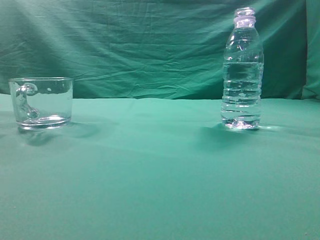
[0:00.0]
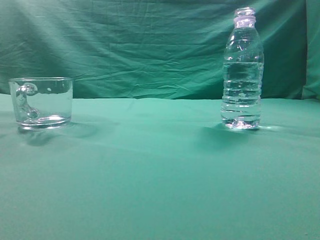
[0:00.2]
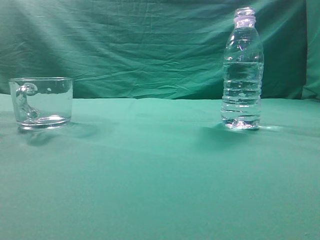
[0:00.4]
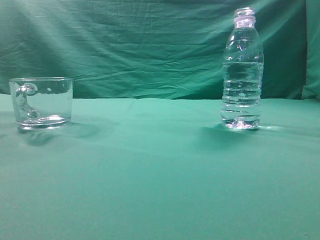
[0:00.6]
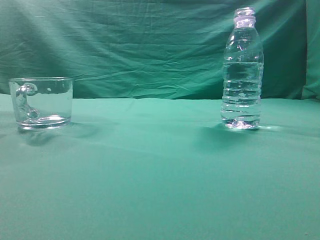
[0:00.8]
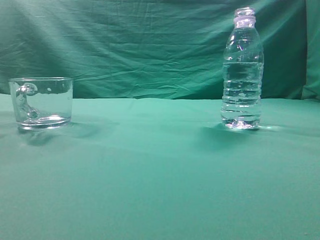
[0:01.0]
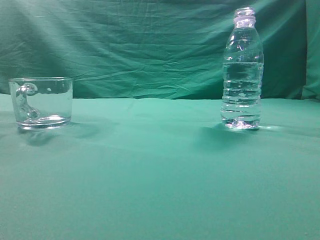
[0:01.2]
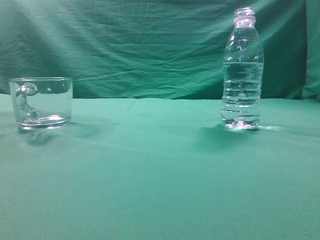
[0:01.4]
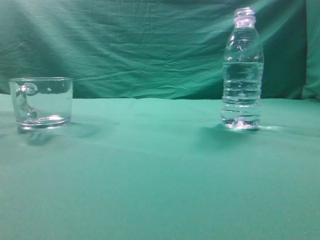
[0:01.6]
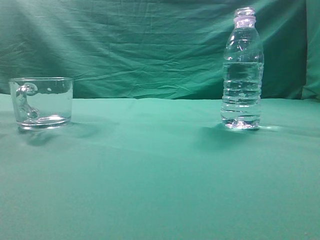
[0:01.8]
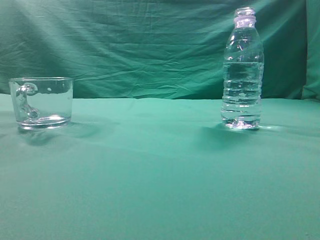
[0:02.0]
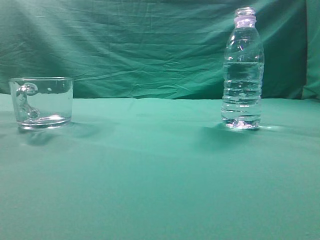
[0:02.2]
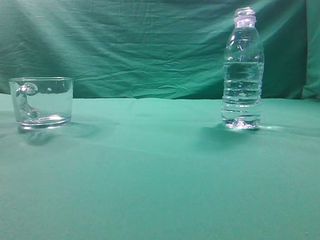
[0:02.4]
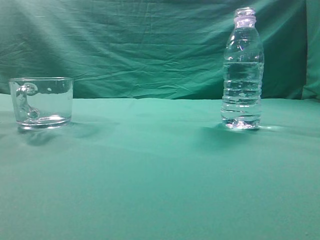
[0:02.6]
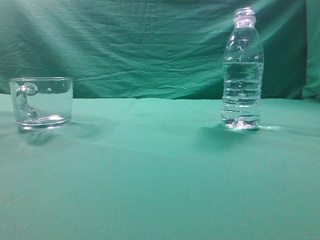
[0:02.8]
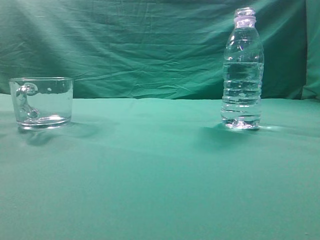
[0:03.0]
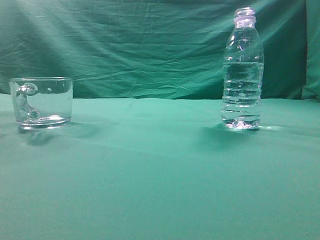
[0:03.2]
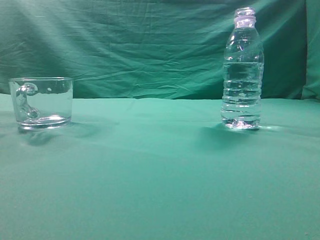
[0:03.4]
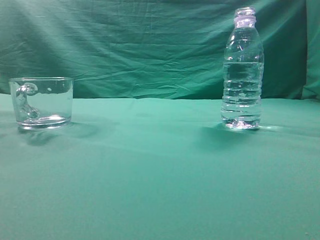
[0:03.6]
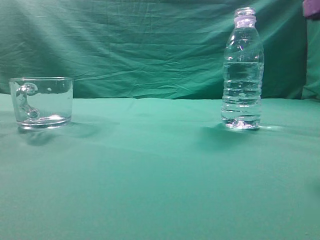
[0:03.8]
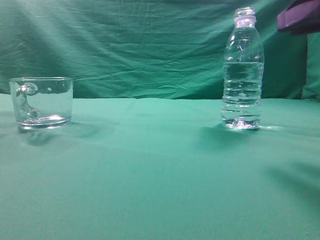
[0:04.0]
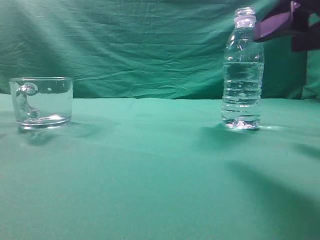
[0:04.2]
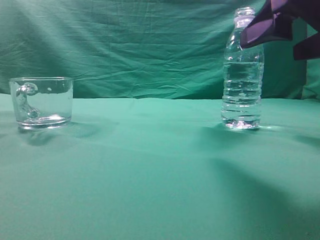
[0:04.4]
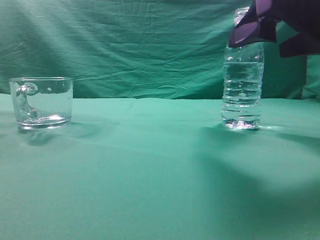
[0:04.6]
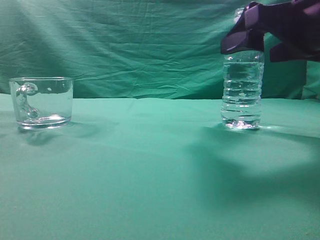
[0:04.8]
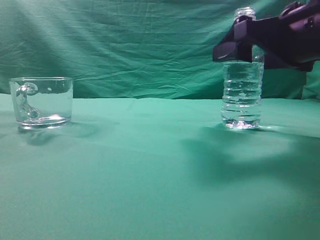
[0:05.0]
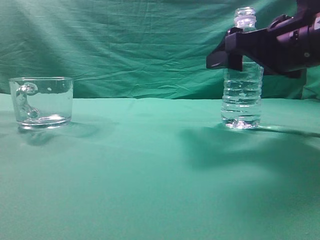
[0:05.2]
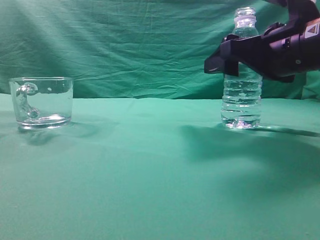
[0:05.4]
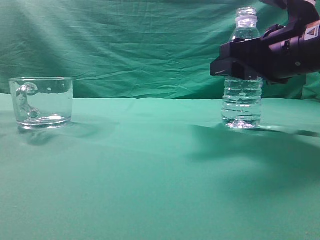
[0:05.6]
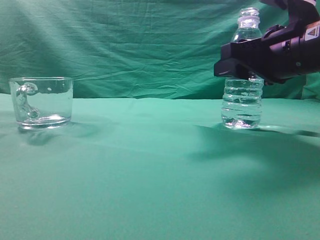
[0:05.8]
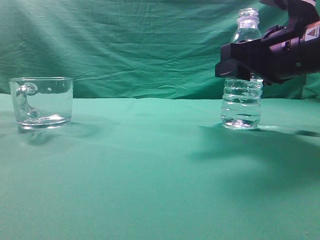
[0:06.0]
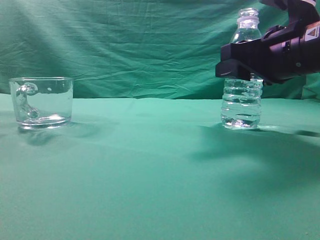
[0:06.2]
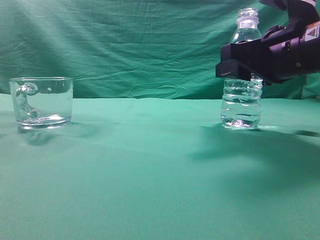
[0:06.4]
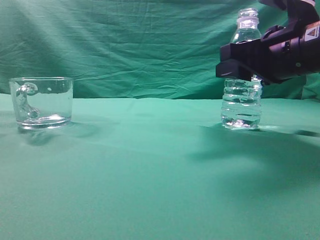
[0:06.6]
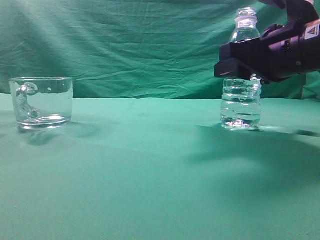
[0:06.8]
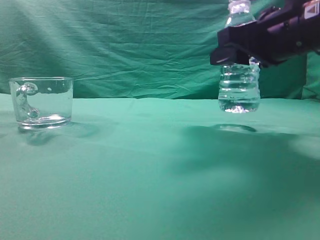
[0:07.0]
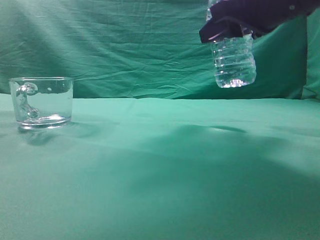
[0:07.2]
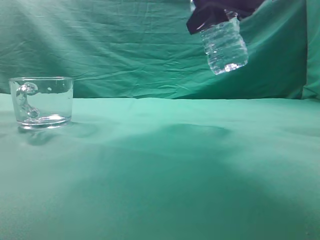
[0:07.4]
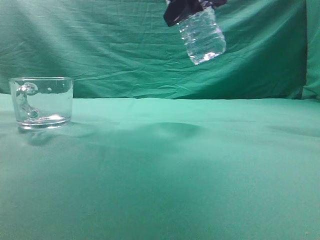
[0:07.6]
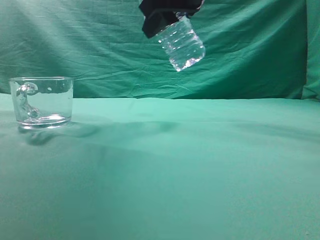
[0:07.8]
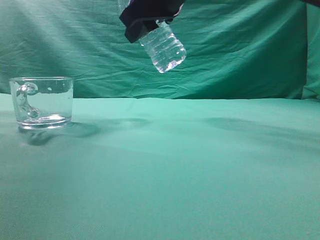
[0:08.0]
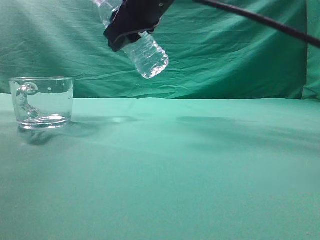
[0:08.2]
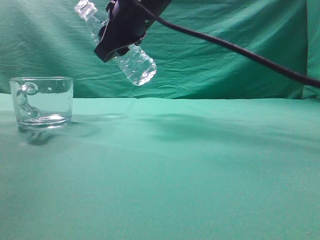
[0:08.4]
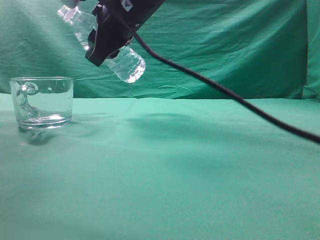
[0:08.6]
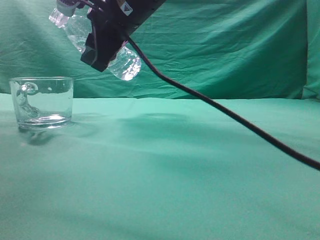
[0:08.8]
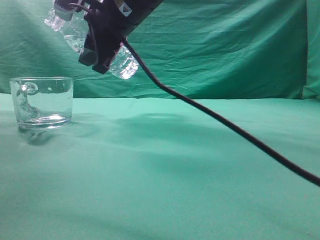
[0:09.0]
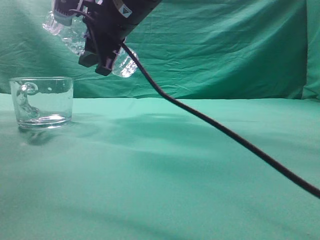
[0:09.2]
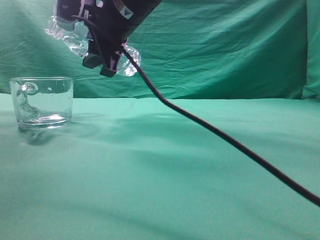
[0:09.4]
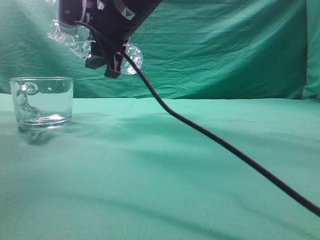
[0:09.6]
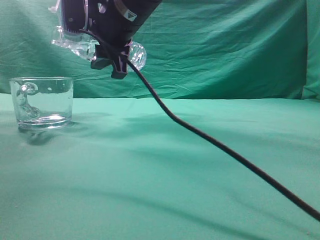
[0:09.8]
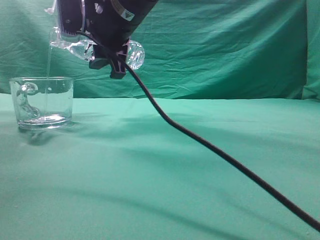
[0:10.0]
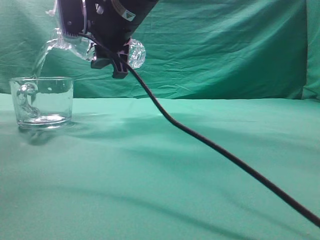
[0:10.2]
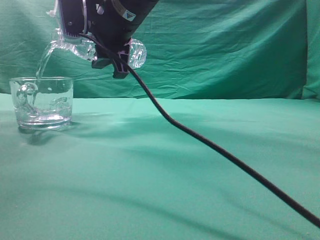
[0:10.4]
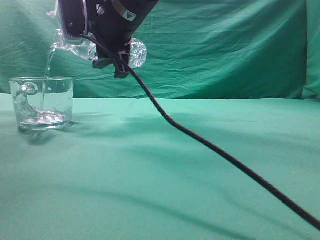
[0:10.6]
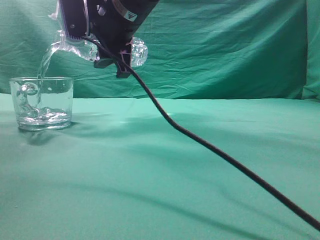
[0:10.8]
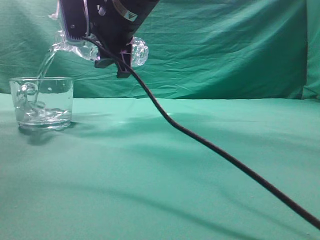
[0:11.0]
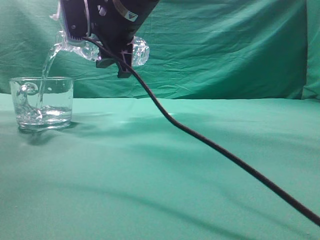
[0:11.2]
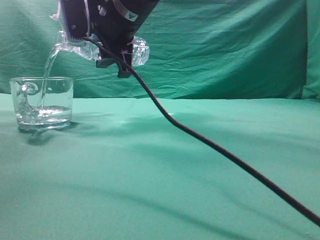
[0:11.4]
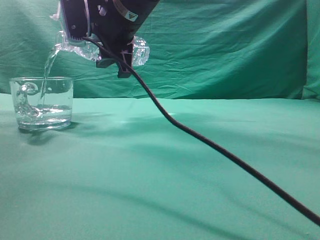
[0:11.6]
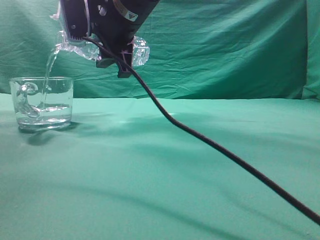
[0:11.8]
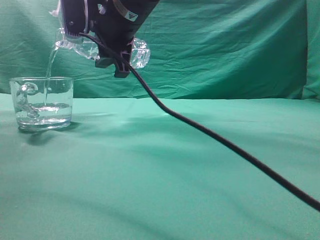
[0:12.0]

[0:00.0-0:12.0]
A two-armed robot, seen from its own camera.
Task of the whole recording: pick up the water bottle and pour the water in it into the glass.
Step, 0:00.0 to 0:07.0: Grasp the mineral water bottle.
0:03.0 to 0:04.4: The right gripper is displaced forward, to the left and downward by approximately 20 cm, and opens.
0:04.4 to 0:06.0: The right gripper heads forward, covering roughly 5 cm, and closes up.
0:06.0 to 0:07.6: The right gripper shifts about 15 cm upward and to the left.
0:07.6 to 0:09.0: The right gripper is displaced to the left and forward by approximately 15 cm.
0:09.0 to 0:10.4: There are only small adjustments of the grippers.
0:10.4 to 0:12.0: The grippers move only a little.

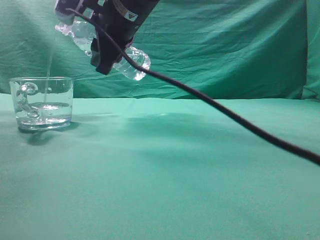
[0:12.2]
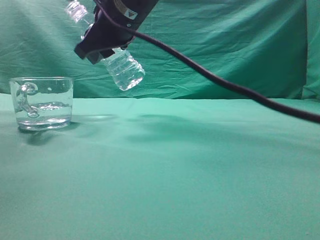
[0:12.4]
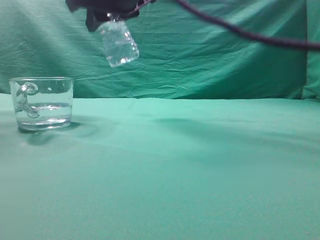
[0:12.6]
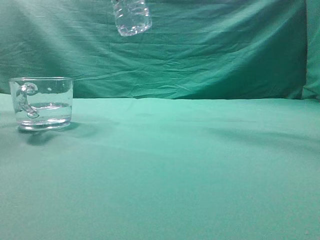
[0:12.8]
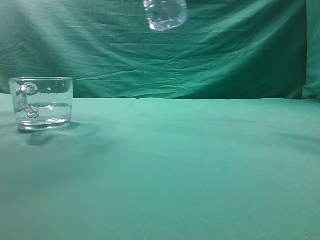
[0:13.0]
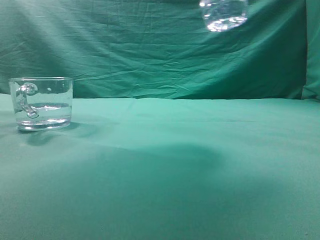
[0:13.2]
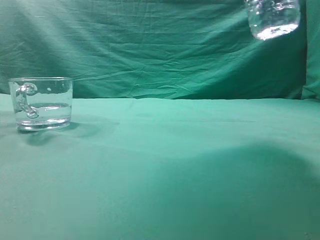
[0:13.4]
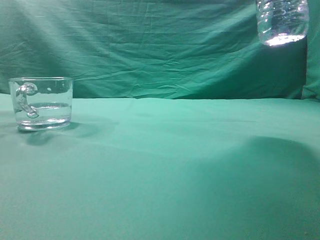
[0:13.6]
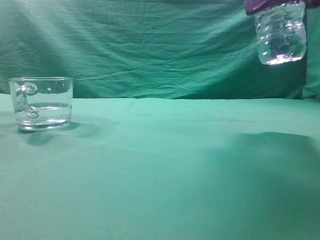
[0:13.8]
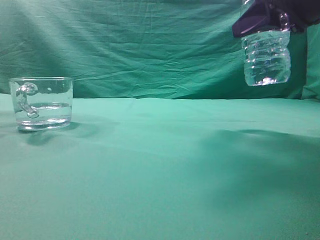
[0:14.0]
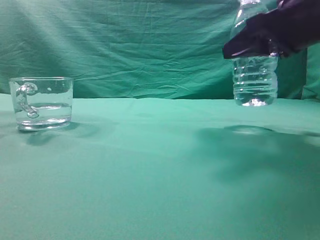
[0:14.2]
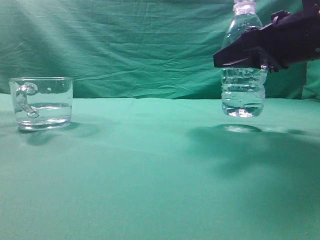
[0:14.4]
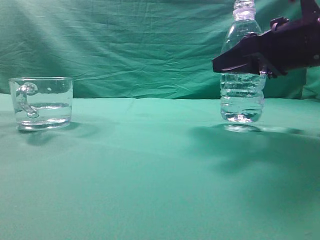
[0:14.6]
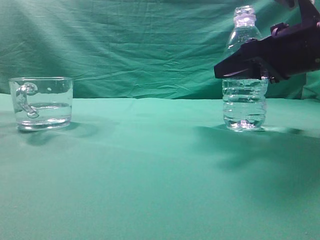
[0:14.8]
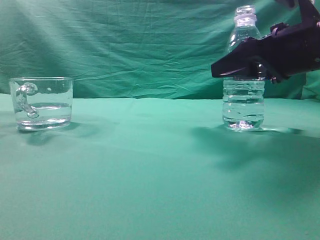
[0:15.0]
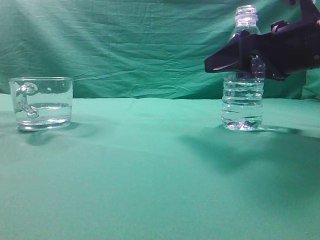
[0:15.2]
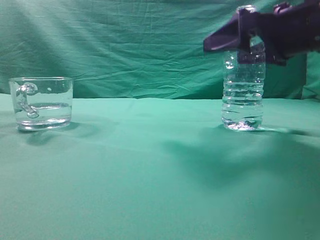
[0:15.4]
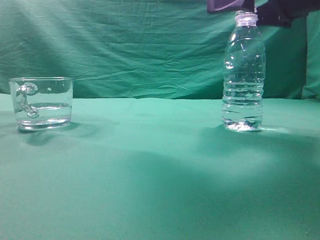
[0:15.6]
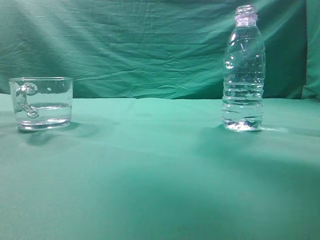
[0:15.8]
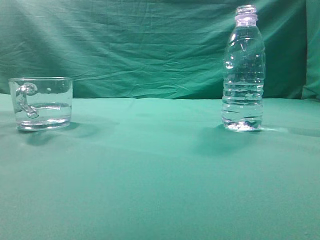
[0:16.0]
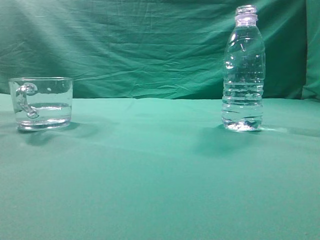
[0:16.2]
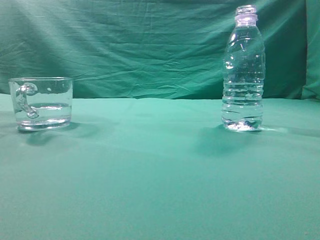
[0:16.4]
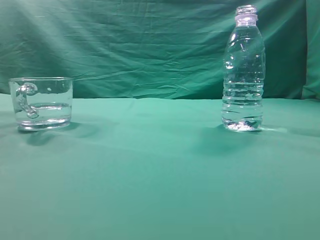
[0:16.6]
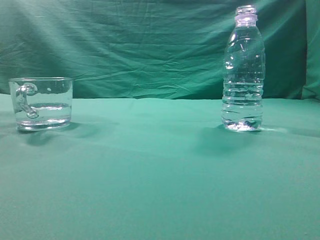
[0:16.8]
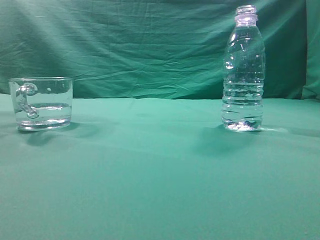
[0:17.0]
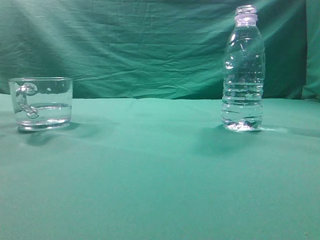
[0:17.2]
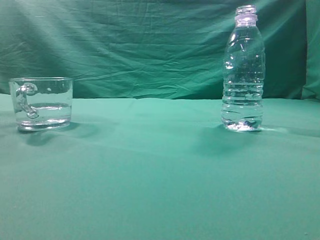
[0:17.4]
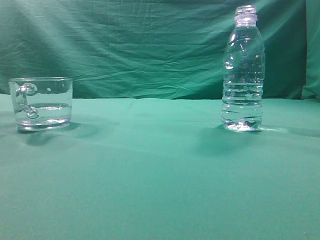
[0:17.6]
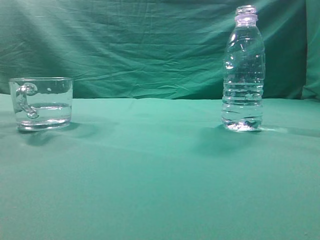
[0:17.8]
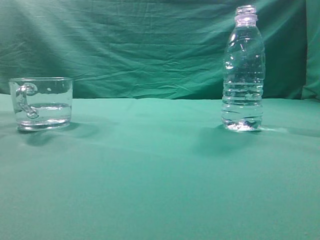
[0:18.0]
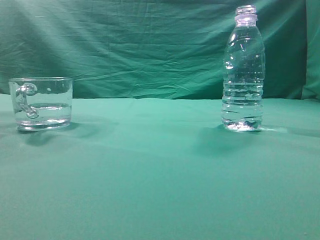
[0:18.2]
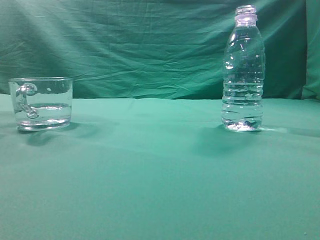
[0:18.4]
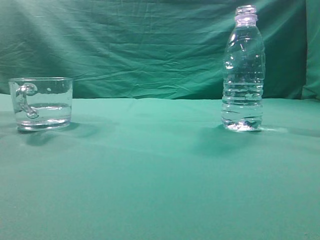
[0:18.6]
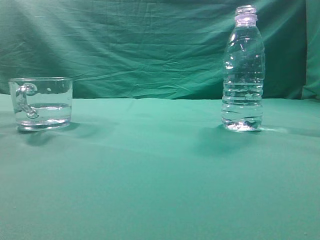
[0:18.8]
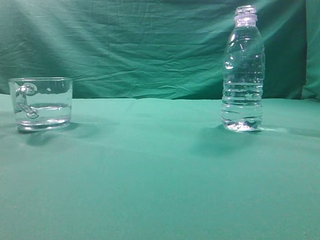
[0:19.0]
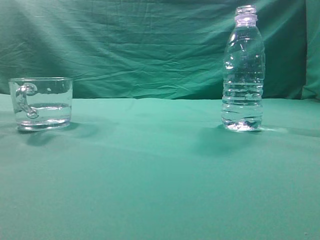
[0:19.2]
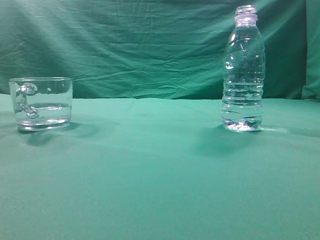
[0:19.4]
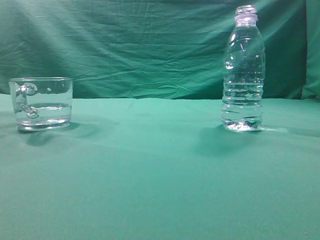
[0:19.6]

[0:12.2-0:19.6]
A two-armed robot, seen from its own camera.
Task of the whole recording: pick up the water bottle and pour the water in it into the glass.
0:12.2 to 0:13.6: The right gripper heads to the right, covering approximately 25 cm.
0:13.6 to 0:15.2: The right gripper goes about 10 cm downward, and opens.
0:15.2 to 0:16.6: The right gripper travels upward and backward by approximately 30 cm, and closes its fingers.
